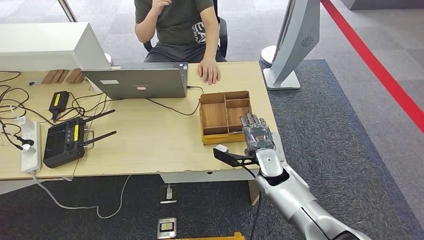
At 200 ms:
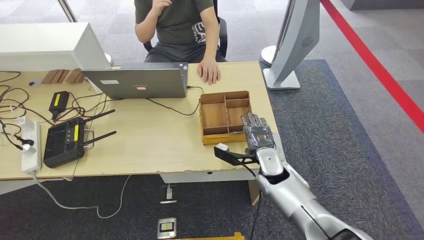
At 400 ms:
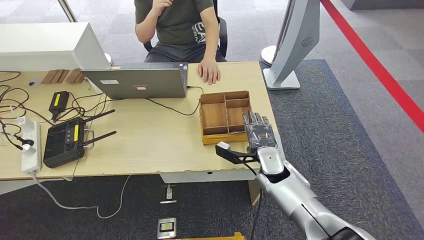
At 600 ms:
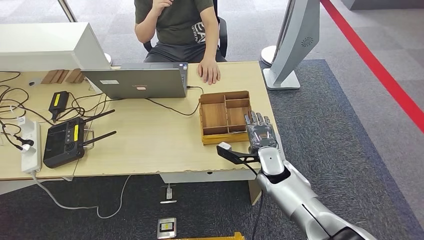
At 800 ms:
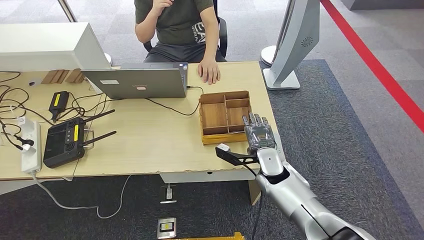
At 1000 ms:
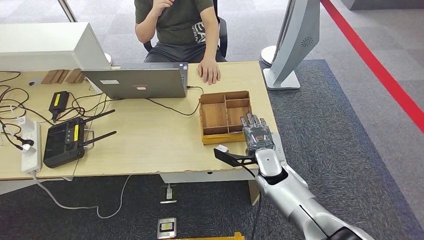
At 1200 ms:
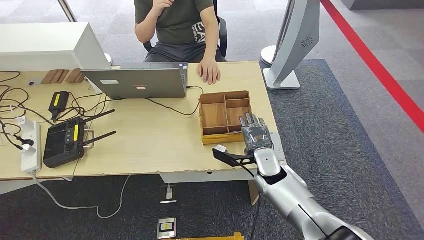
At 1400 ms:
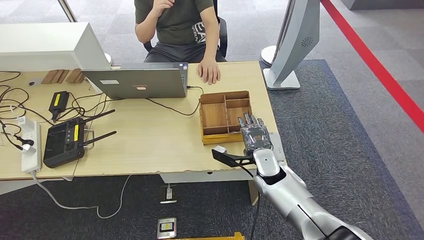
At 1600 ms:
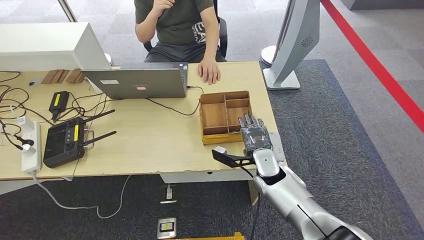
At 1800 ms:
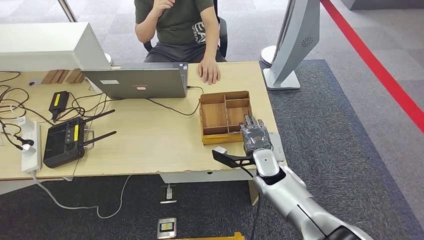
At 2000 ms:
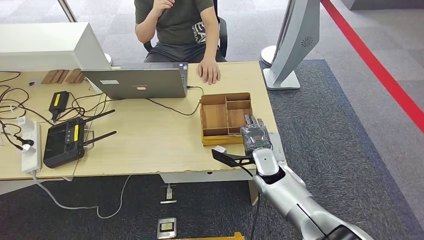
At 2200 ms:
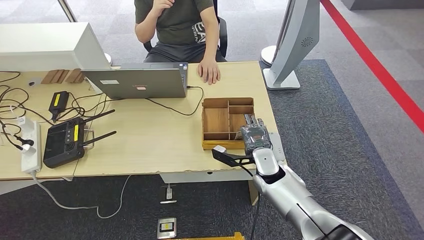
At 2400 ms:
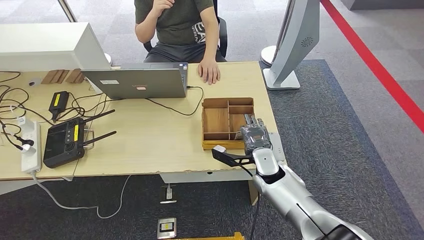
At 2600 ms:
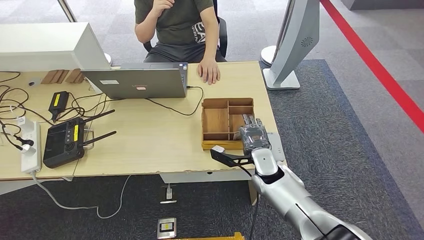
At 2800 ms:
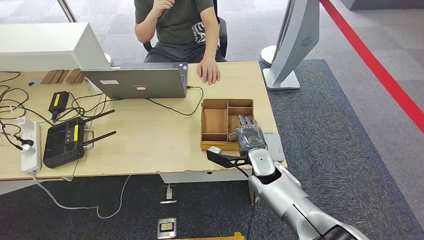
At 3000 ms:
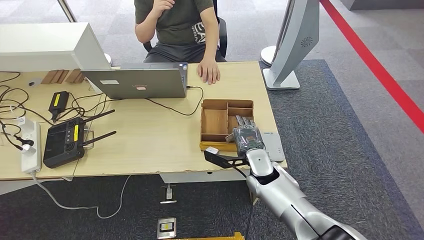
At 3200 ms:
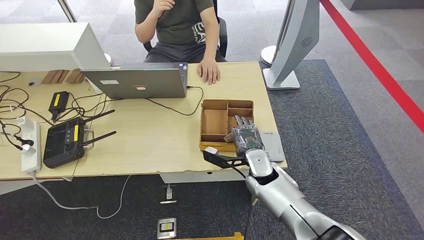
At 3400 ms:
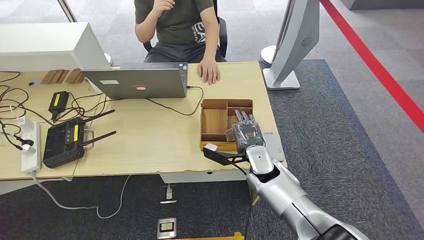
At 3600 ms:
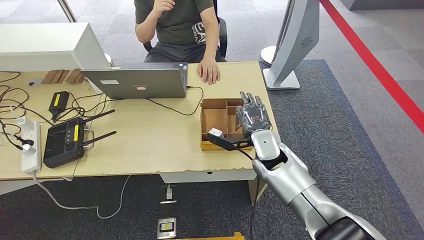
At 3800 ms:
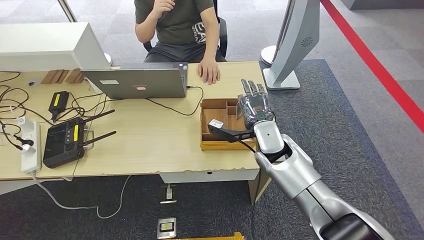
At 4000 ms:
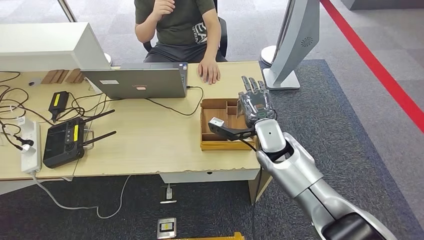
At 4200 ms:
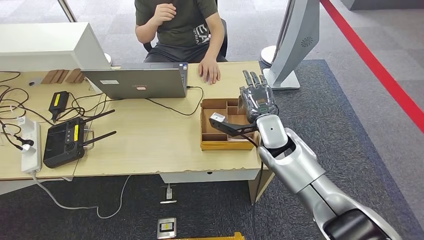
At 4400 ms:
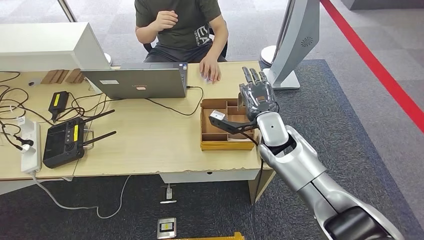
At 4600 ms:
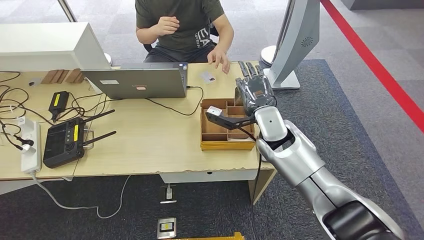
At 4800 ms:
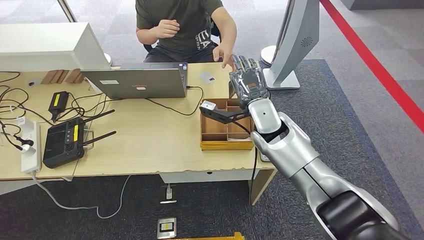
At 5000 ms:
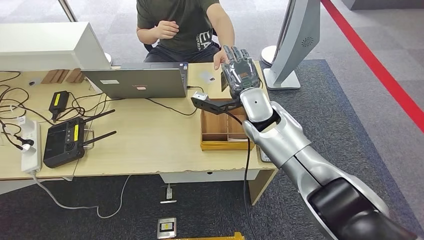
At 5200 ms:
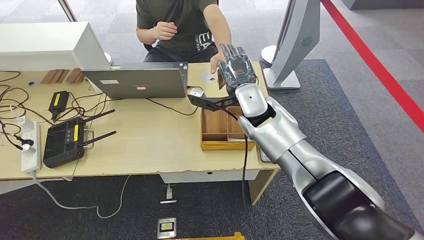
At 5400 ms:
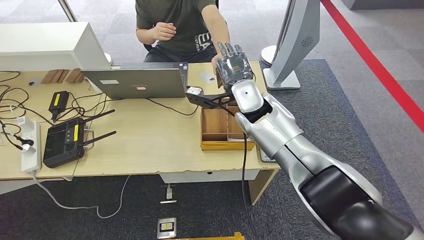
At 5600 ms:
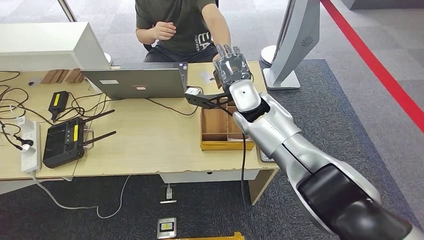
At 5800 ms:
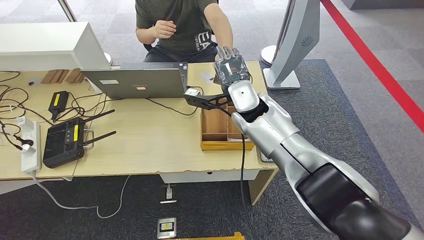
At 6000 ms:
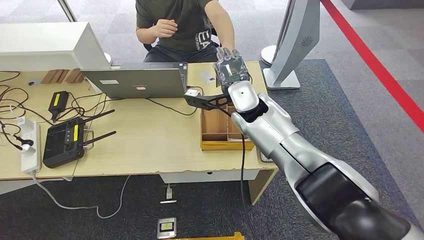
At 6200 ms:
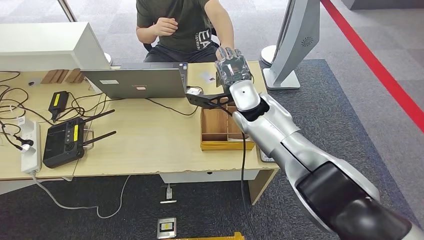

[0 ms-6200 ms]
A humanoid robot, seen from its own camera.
Step, 0 ms to 2600 ms: Pick up the room key from the key card box.
Step, 2800 ms to 6200 ms: Hand the room key to the person.
0 ms to 1600 ms: The two hands keep their place.
1600 ms to 3200 ms: There are only small adjustments of the hands.
3200 ms to 4600 ms: The right hand goes about 15 cm upward.
4600 ms to 6200 ms: The right hand is displaced to the left and forward by roughly 10 cm.
